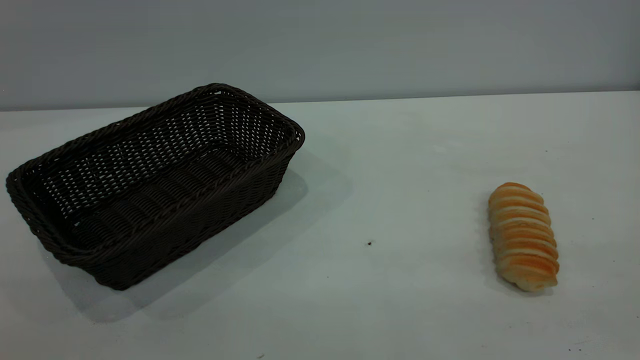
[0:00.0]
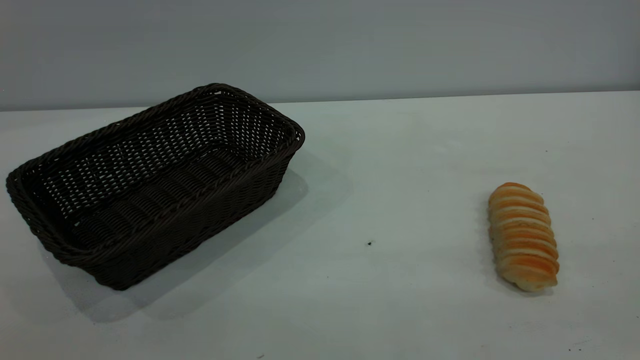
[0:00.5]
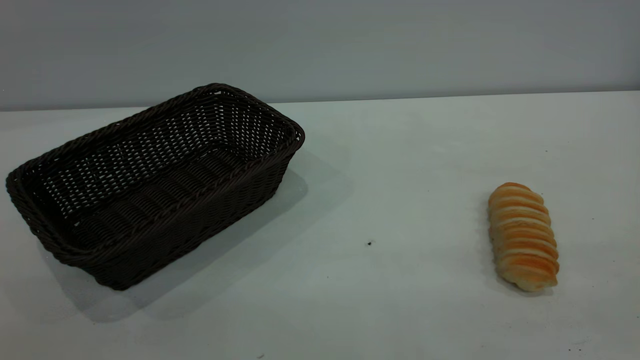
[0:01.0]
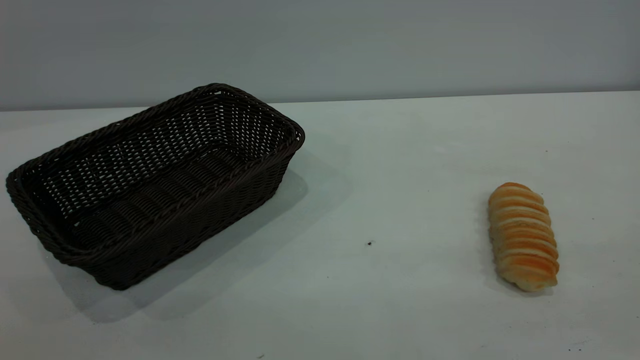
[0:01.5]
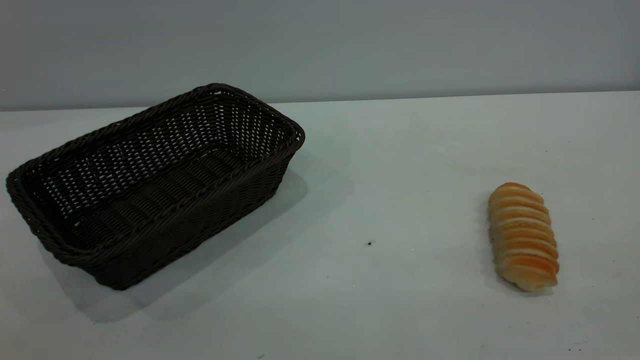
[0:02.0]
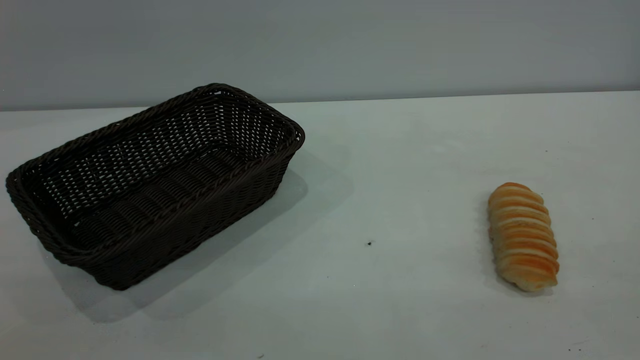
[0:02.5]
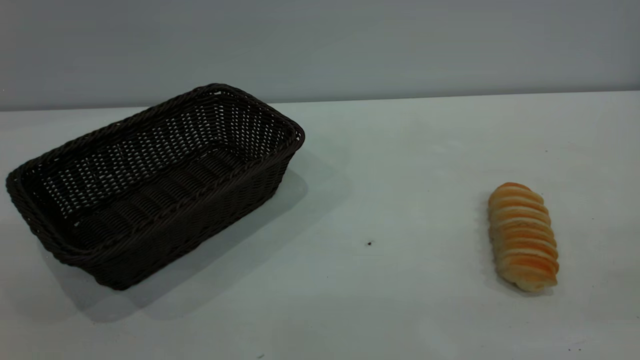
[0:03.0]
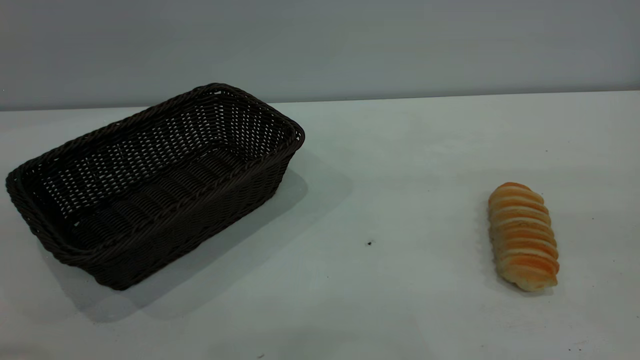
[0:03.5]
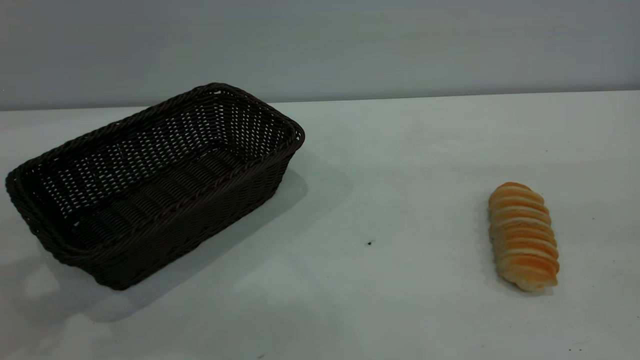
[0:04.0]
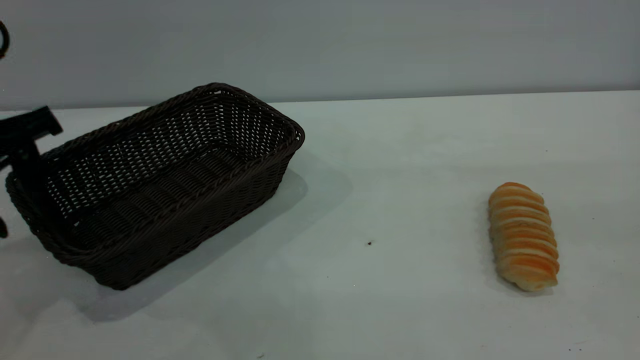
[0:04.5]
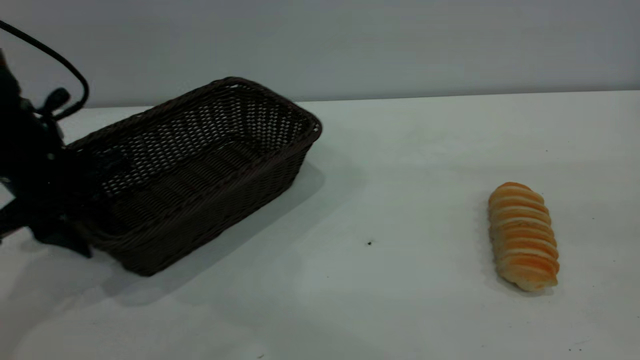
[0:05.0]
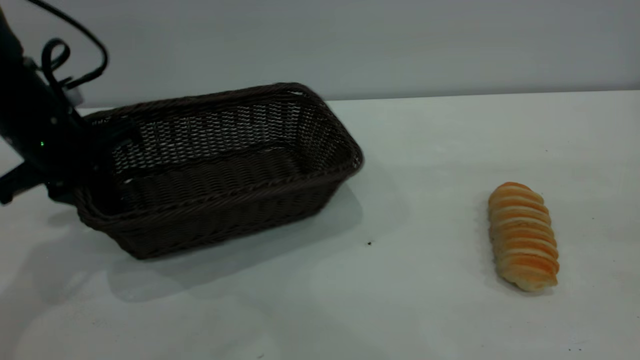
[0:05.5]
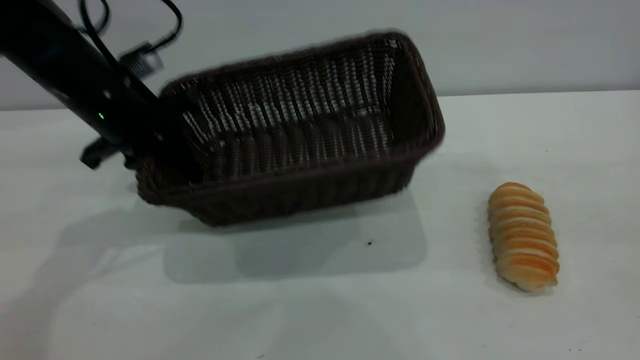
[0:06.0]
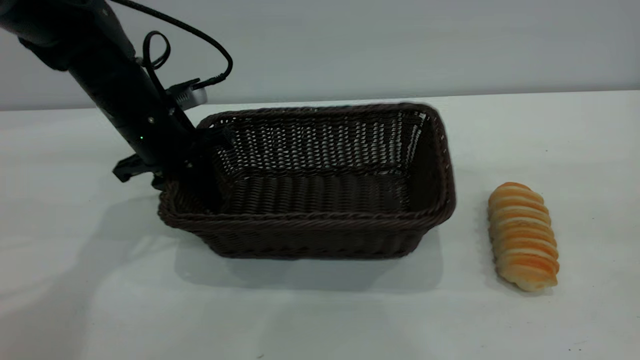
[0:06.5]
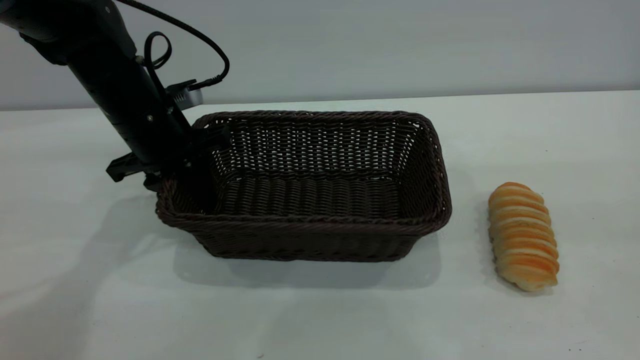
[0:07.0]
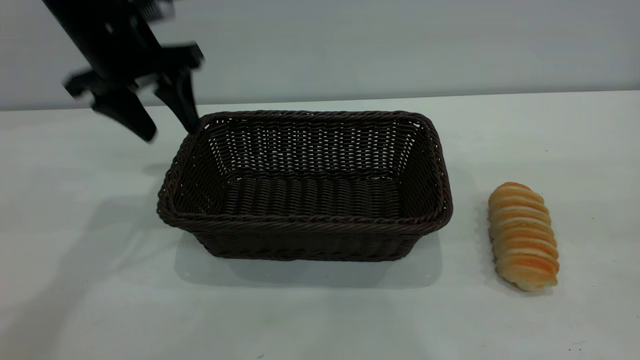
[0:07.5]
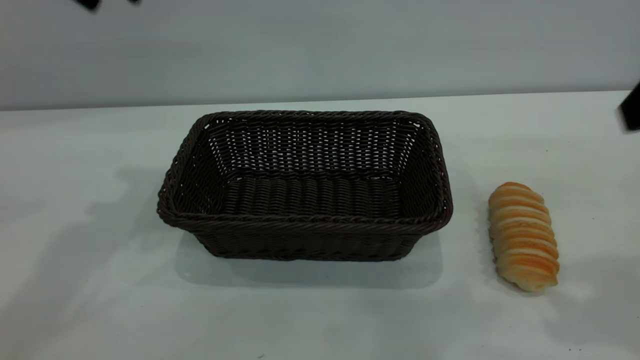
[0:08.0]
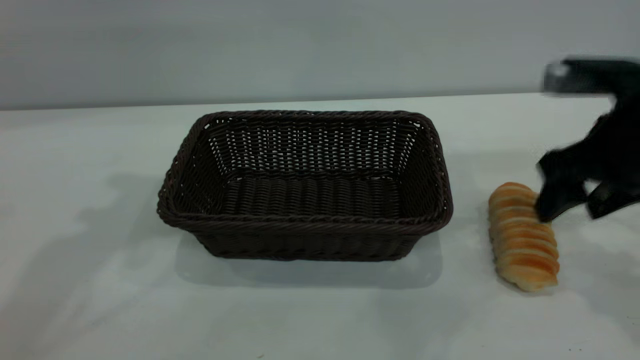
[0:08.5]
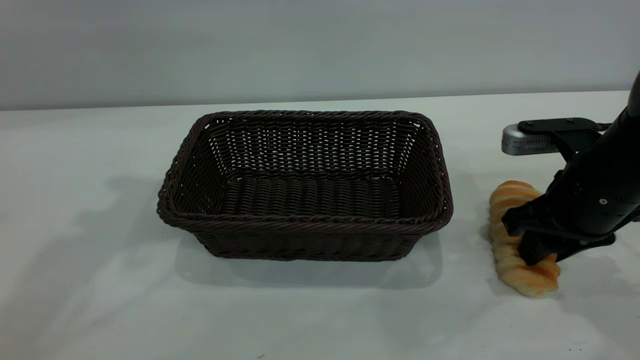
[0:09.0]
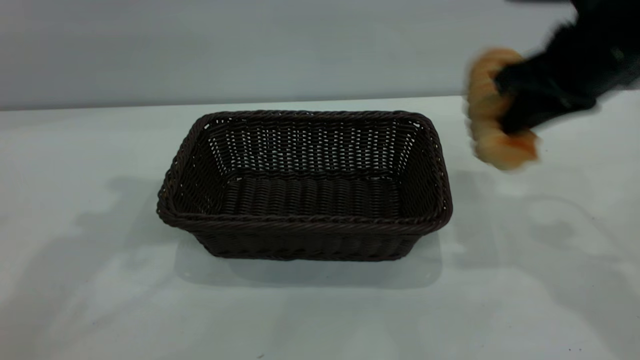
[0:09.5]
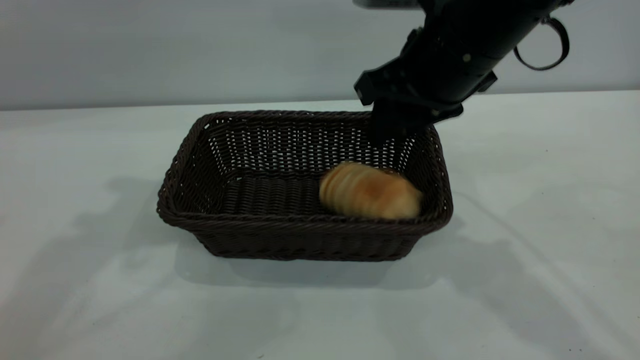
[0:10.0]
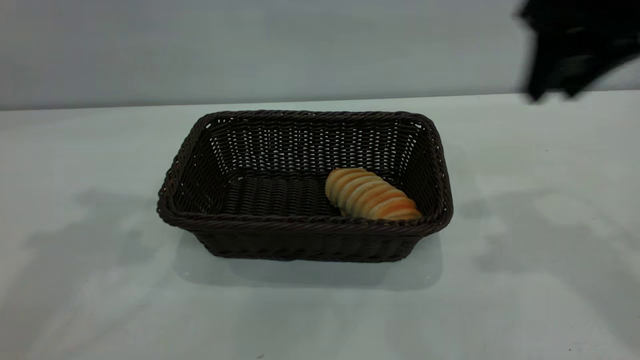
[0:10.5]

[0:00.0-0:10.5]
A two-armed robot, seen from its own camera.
Task of the whole recording: One hand grasps the black basket and places it in the middle of the table, while the other hand picks up the long bread and puts it into the black basket.
Step, 0:00.0 to 0:07.5: Move the basket to the center of view.
Step, 0:09.5 to 0:10.0: place the bread into the basket.
0:00.0 to 0:02.0: Both grippers stay about where they are.
0:04.0 to 0:06.5: The left gripper heads forward, downward and to the right, covering some 25 cm, and closes up.
0:06.5 to 0:08.5: The left gripper heads upward, covering approximately 25 cm, and opens its fingers, while the right gripper heads downward and forward, covering approximately 30 cm.
0:08.5 to 0:10.5: The right gripper shifts approximately 15 cm upward, and closes up.
